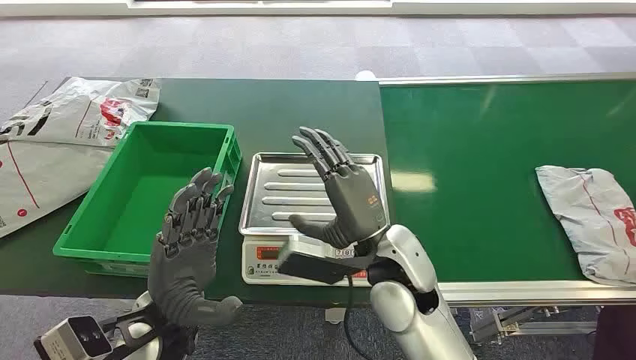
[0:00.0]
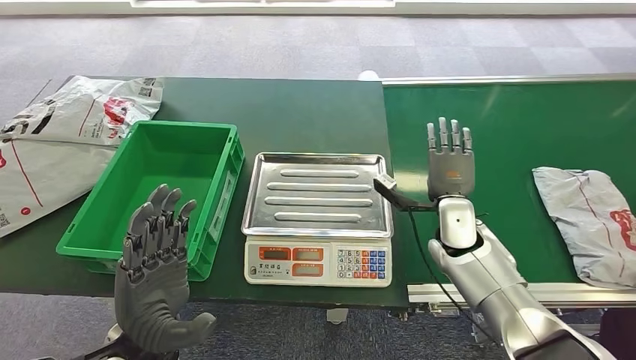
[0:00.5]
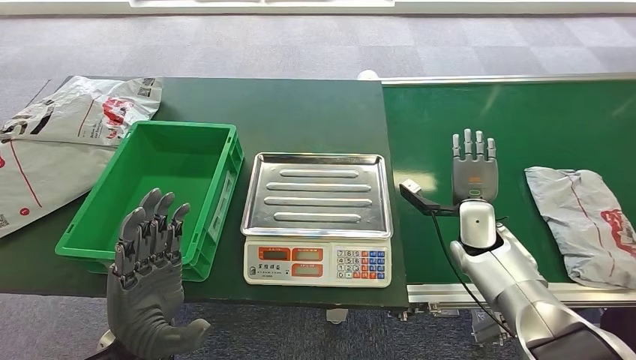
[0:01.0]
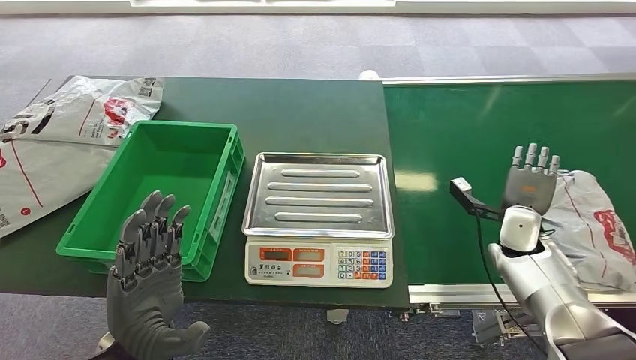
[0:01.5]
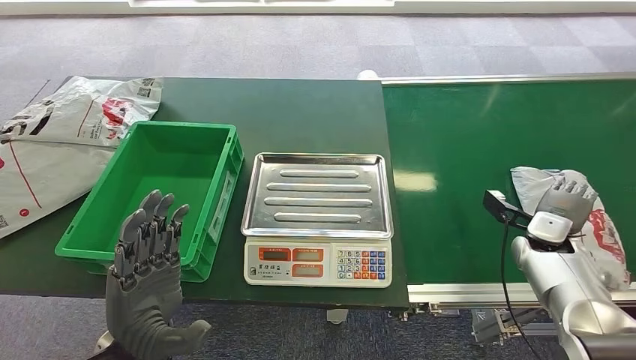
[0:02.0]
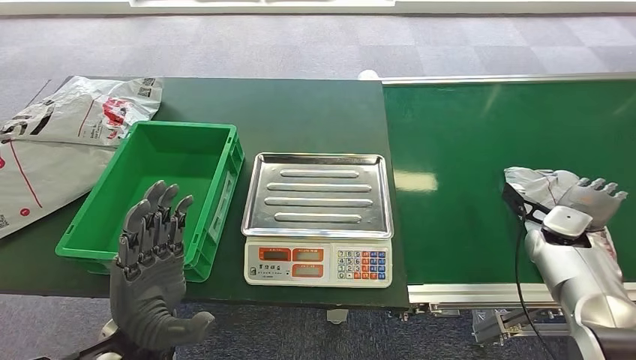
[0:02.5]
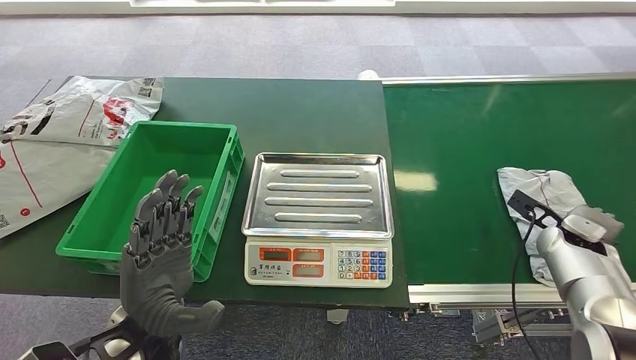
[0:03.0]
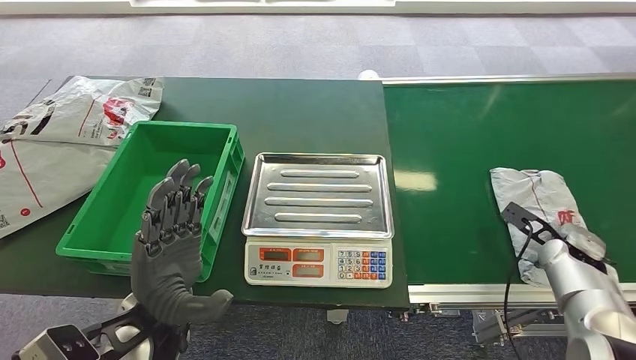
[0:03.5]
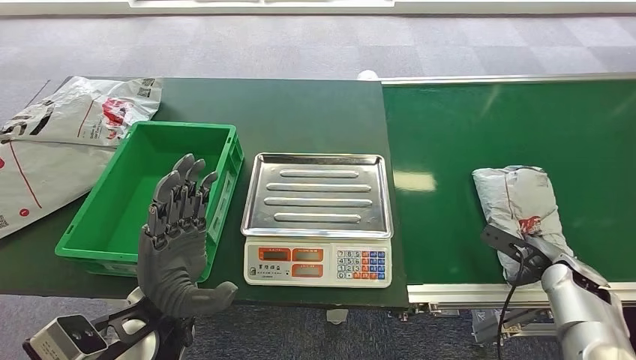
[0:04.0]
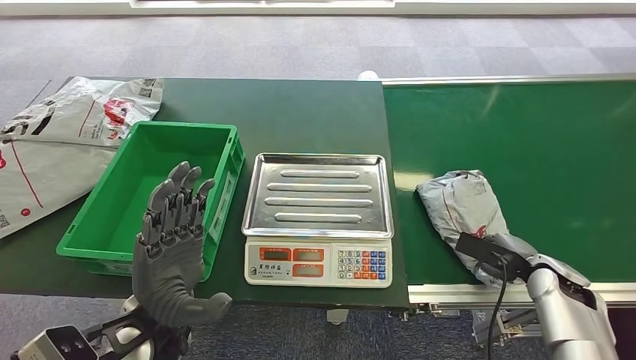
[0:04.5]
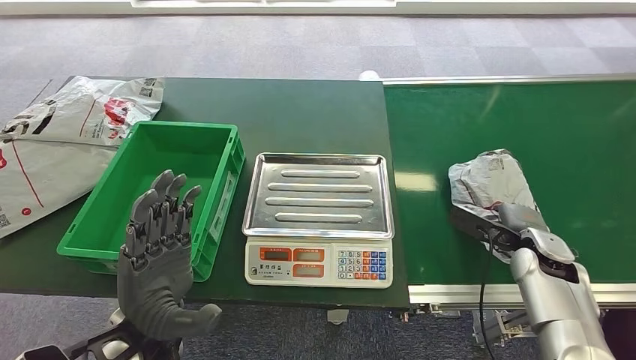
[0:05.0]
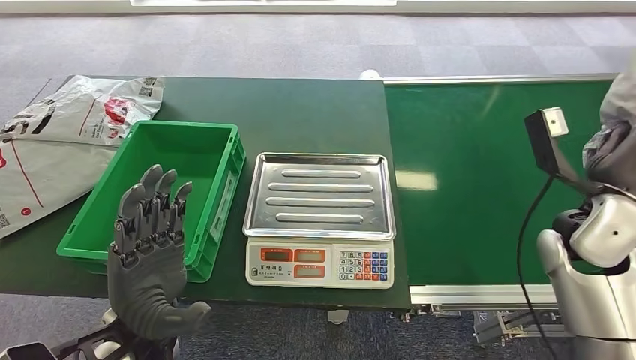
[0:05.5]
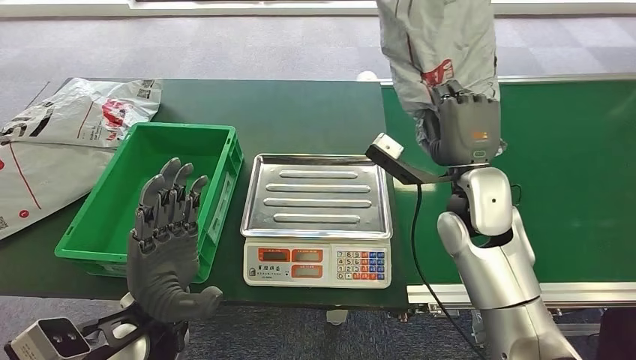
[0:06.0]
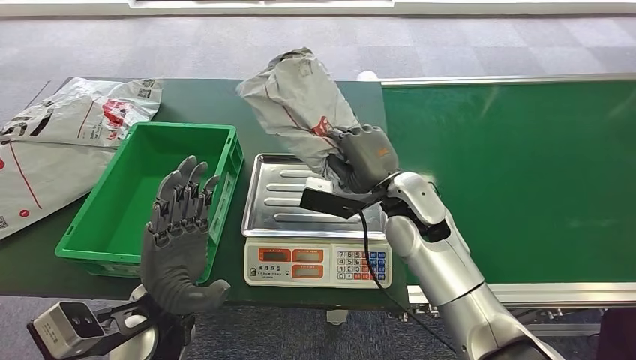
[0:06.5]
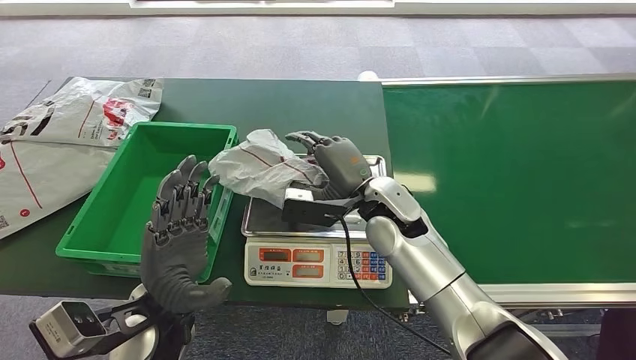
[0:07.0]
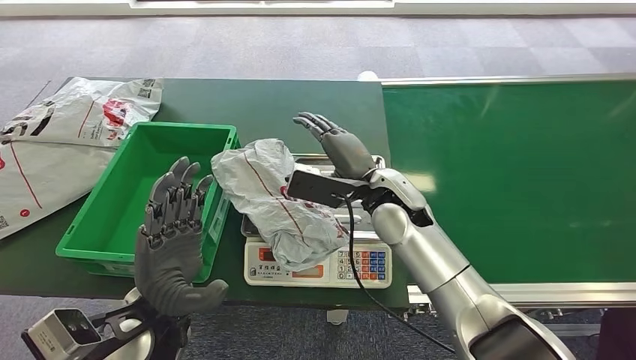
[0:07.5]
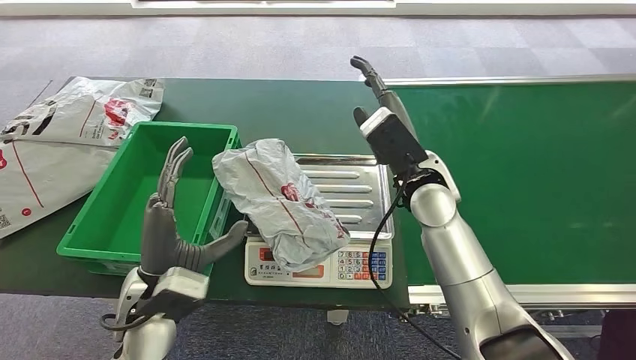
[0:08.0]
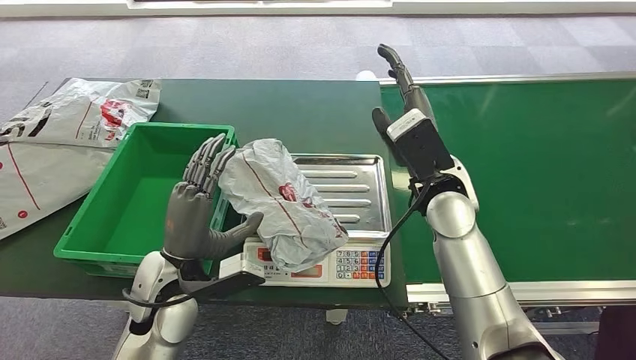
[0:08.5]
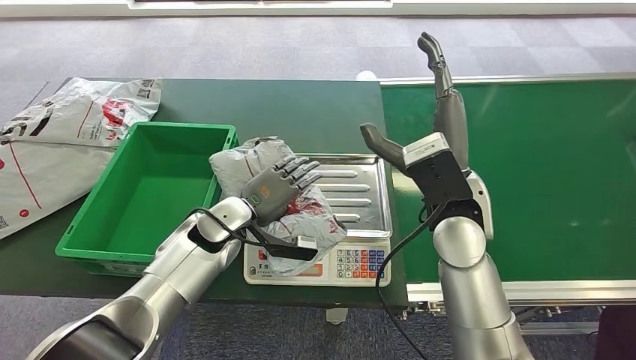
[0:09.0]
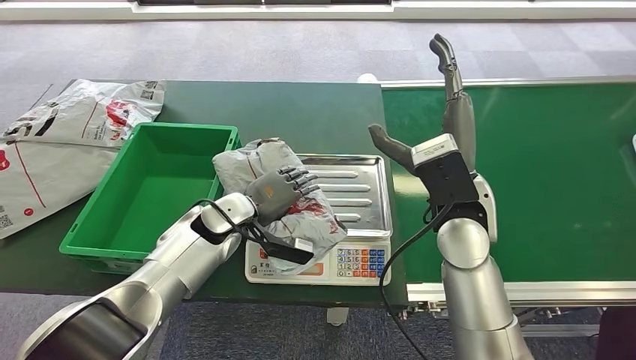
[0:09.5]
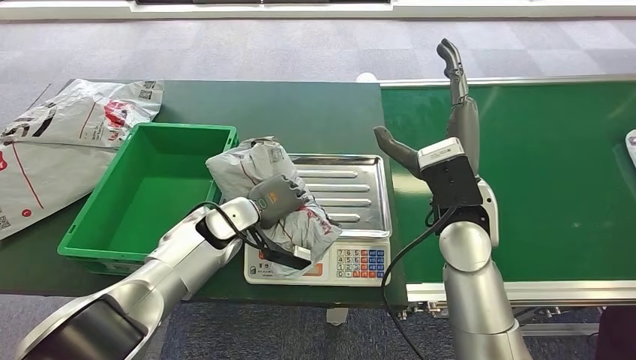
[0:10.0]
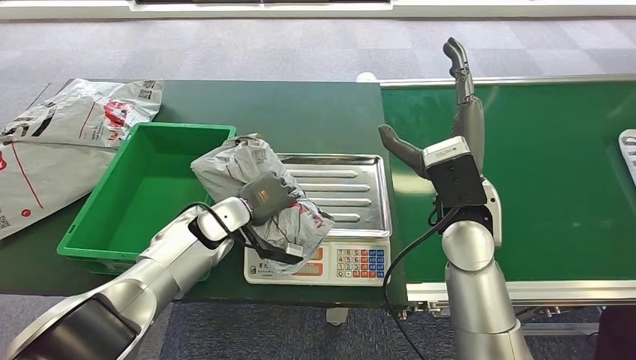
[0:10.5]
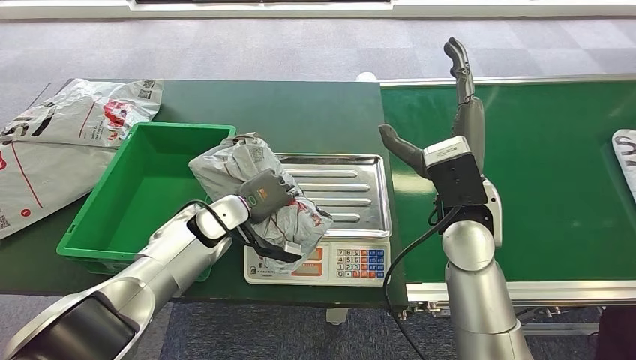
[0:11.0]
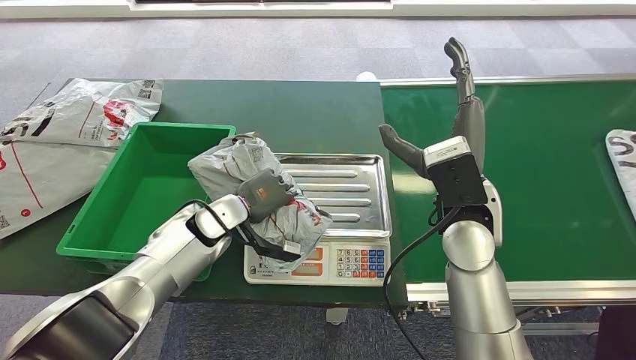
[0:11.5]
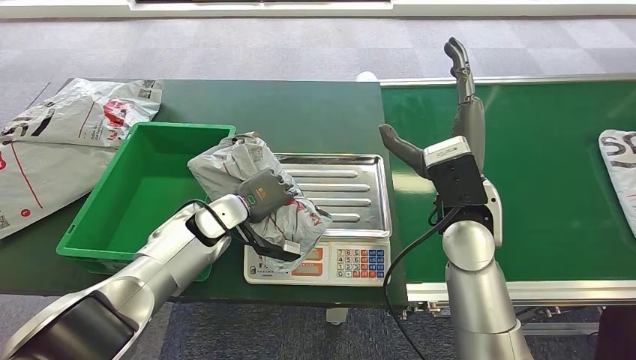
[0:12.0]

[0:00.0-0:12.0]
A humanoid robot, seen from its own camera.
Step, 0:00.0 to 0:05.0: Pick up the package from the conveyor belt.
Step, 0:05.5 to 0:08.0: Place the package onto the inbound machine.
0:02.0 to 0:04.0: The left hand ends up approximately 5 cm from where it was, while the right hand heads backward, covering about 5 cm.
0:10.0 to 0:12.0: There are only small adjustments of the hands.

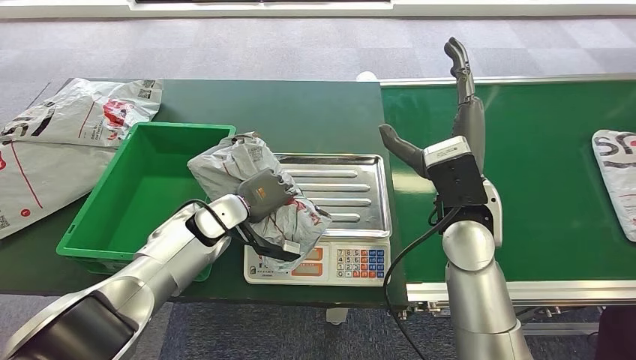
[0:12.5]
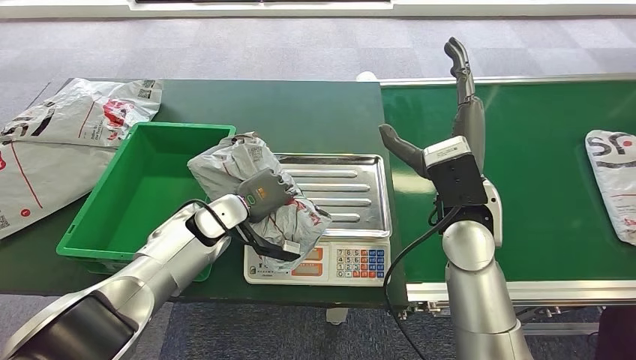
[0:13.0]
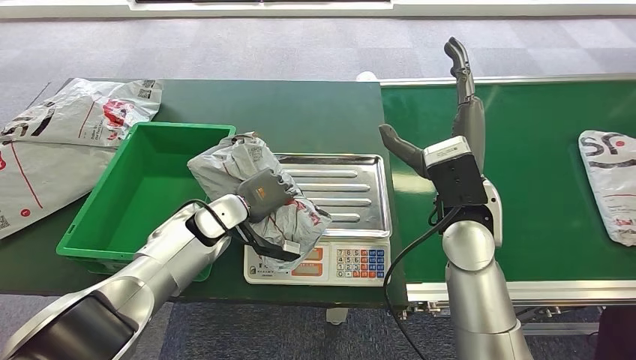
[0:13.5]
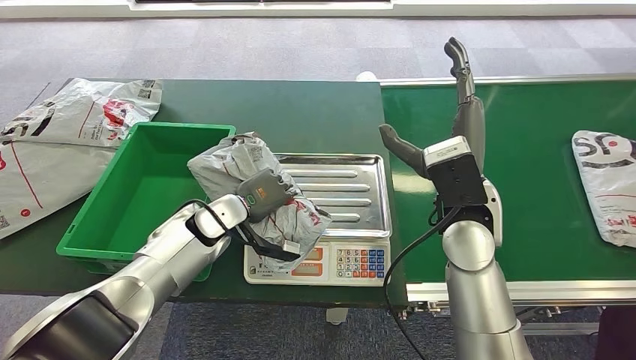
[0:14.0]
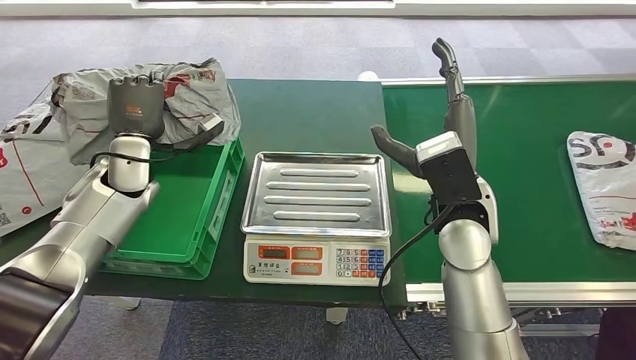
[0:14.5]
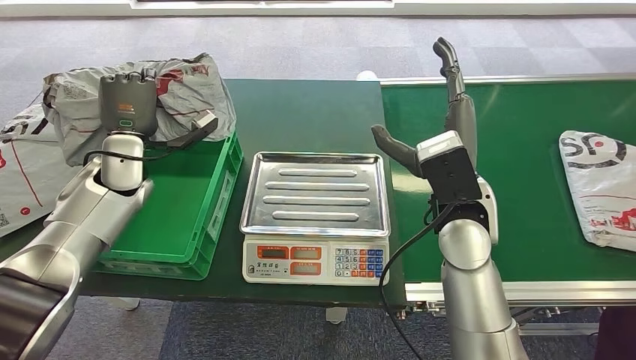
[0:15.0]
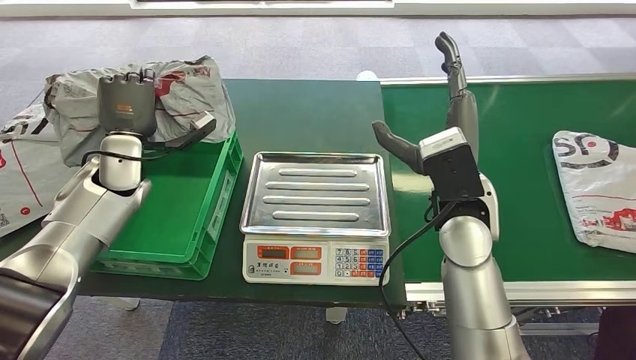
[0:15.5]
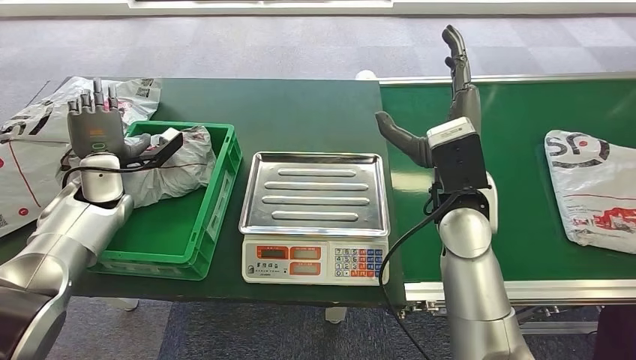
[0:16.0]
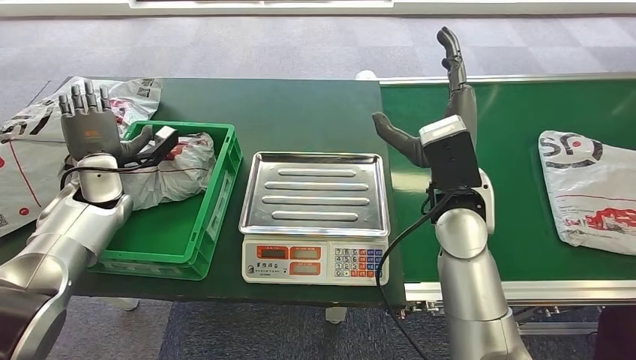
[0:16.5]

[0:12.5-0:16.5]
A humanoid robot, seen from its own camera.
Step, 0:12.5 to 0:14.5: Pick up the package from the inbound machine.
Step, 0:15.5 to 0:16.5: Place the package into the parcel locker.
